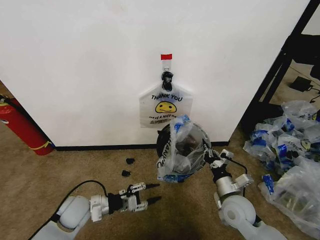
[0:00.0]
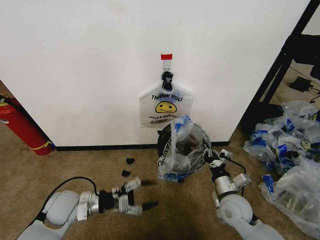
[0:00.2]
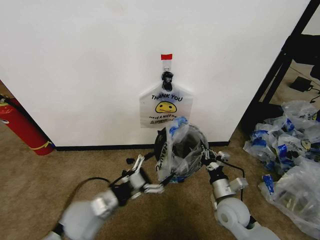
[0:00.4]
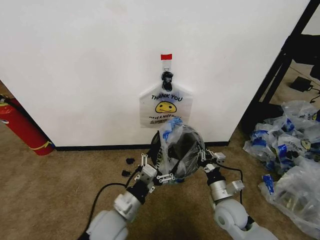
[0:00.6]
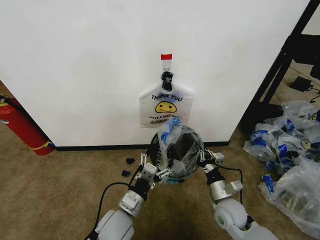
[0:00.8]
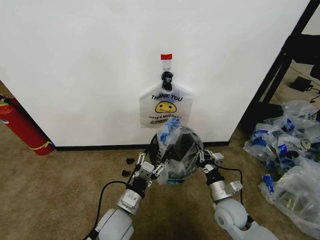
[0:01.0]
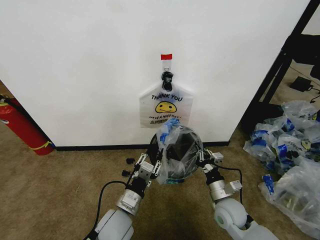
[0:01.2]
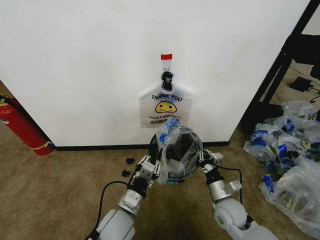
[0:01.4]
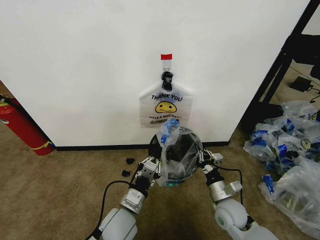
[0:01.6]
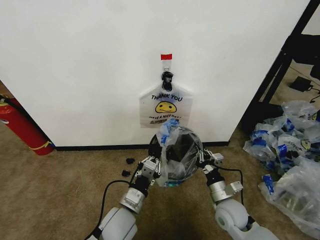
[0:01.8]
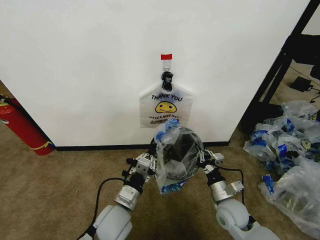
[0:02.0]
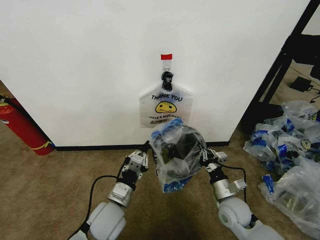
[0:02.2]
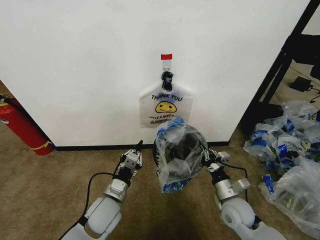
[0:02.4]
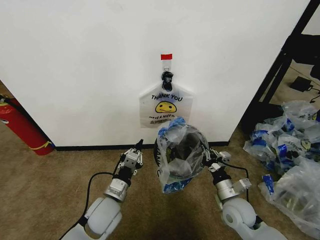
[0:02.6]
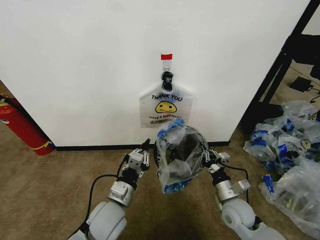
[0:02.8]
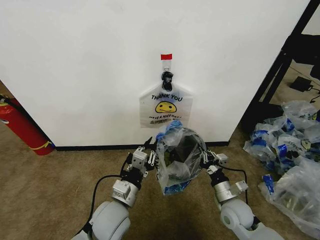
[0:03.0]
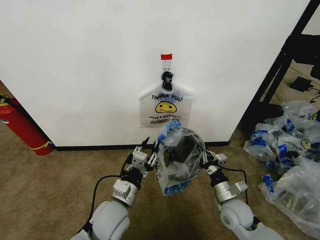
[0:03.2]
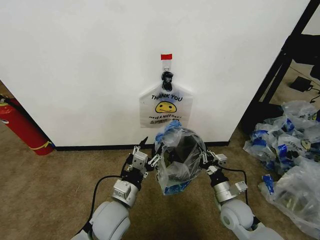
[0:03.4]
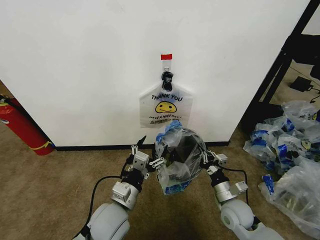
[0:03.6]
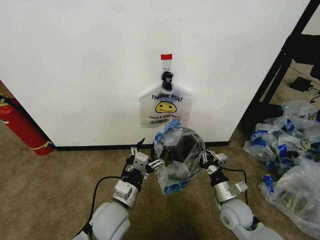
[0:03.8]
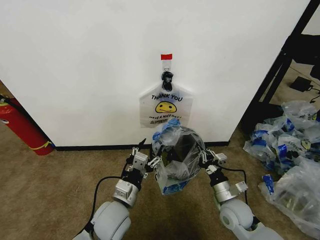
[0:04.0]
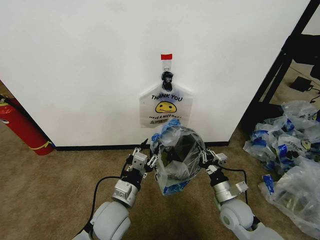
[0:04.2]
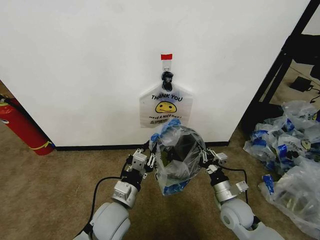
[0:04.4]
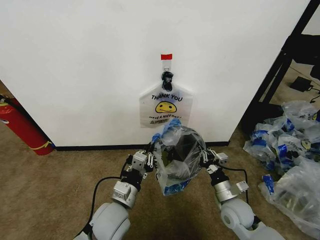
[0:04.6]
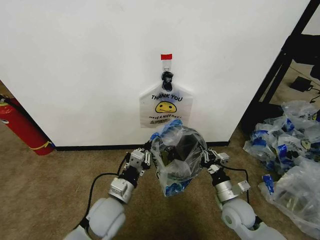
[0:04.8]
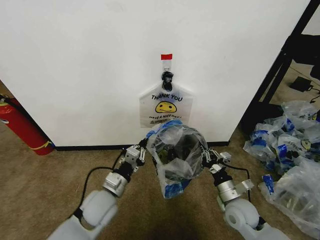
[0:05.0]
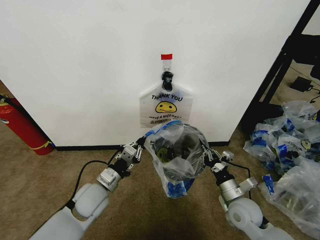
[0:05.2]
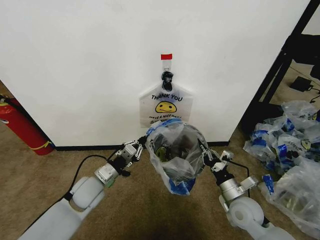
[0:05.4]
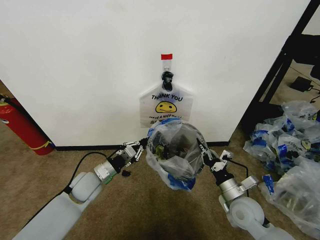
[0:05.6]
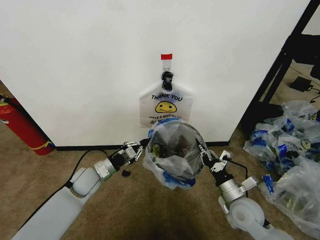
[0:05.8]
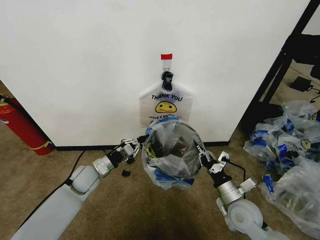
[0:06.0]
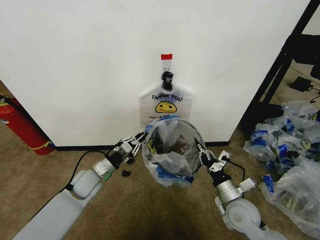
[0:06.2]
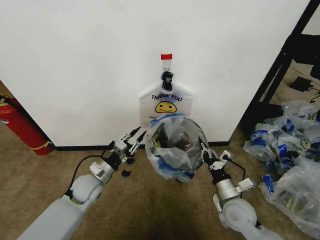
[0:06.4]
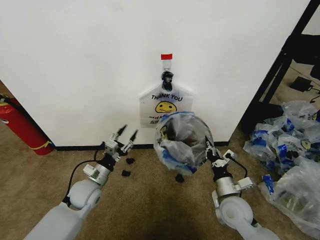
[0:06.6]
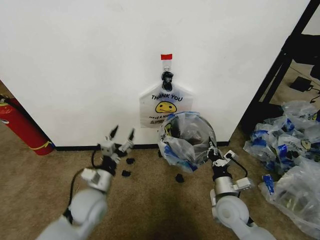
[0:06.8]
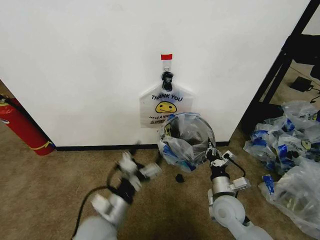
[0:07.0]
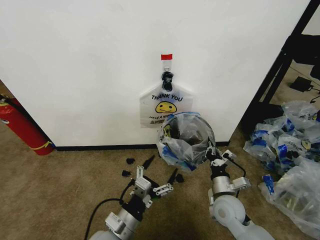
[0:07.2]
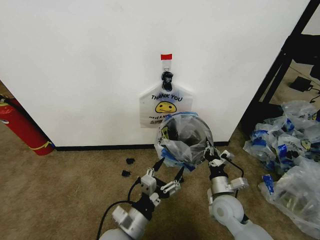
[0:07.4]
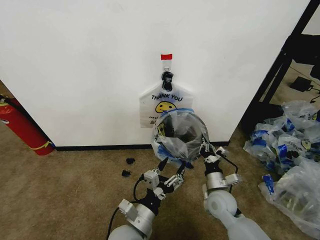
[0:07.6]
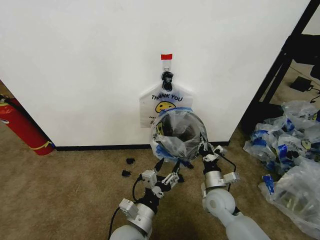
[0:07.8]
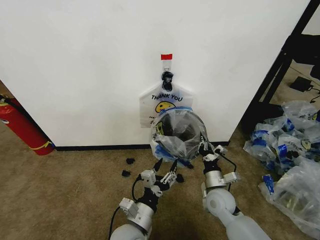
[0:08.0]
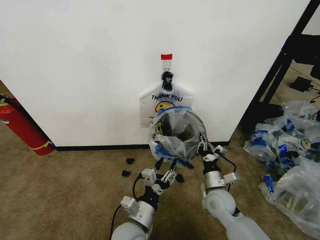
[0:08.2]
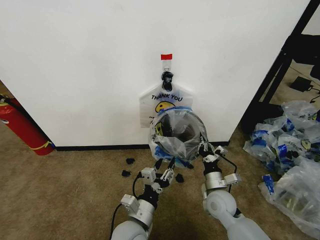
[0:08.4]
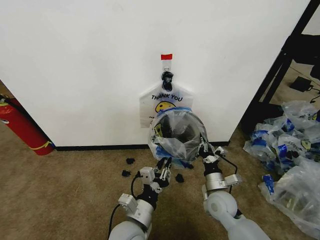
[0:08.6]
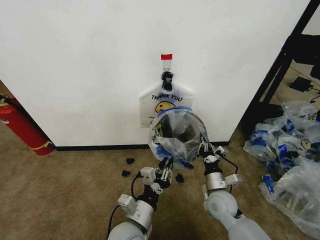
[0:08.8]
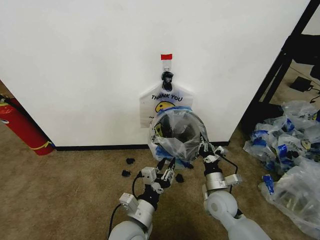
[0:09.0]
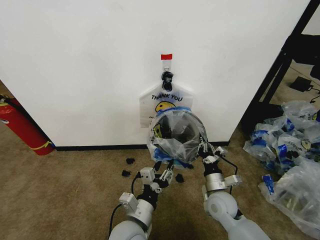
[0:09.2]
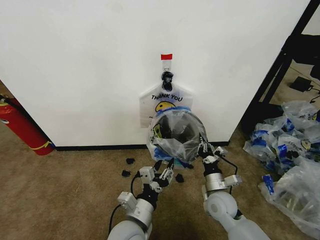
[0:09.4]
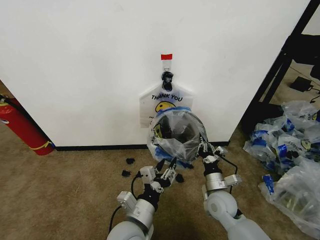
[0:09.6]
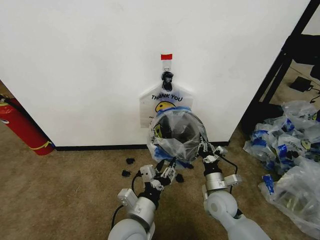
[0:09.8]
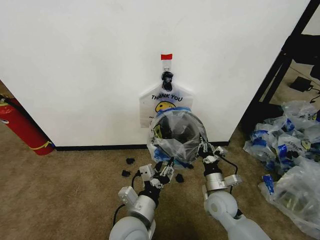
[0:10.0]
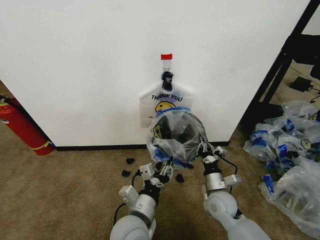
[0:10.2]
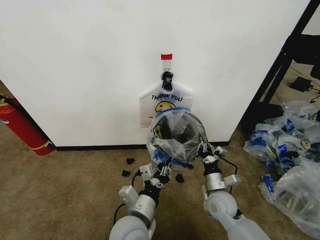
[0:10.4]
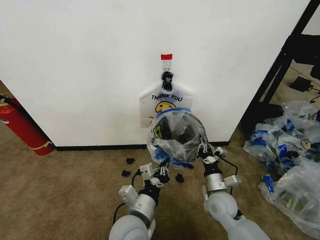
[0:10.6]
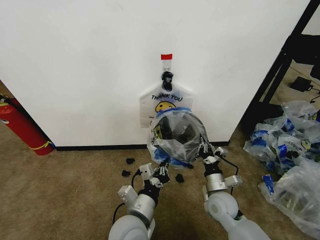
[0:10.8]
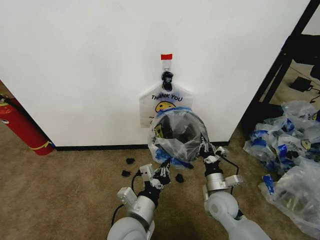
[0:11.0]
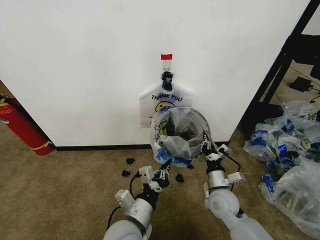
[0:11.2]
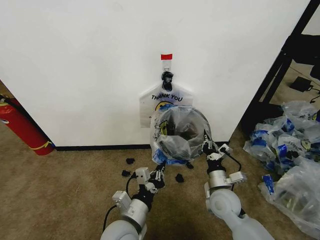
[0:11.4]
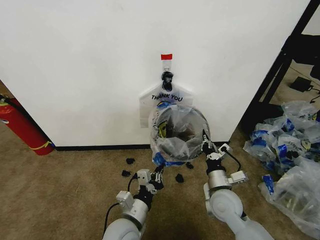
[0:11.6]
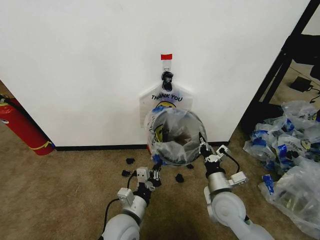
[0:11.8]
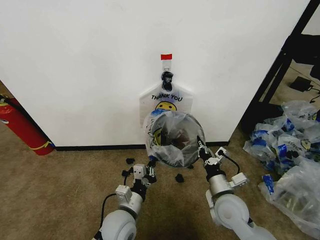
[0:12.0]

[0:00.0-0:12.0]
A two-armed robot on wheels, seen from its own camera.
Task of the whole recording: Pick up the garbage bag from the wall and place it over the trash bin.
0:00.0 to 0:01.6: The left gripper moves to the right, approximately 15 cm, and closes.
0:03.0 to 0:04.4: The left gripper opens, then closes again.
0:04.4 to 0:06.0: The left gripper travels forward and to the left by roughly 20 cm.
0:06.0 to 0:07.6: The right gripper ends up some 5 cm from where it was, while the left gripper goes roughly 25 cm backward and to the right, and opens.
0:07.6 to 0:09.0: There are only small adjustments of the grippers.
0:09.0 to 0:10.4: The grippers move only a little.
0:10.4 to 0:12.0: The right gripper heads upward, covering approximately 5 cm. The left gripper is displaced downward by roughly 5 cm.

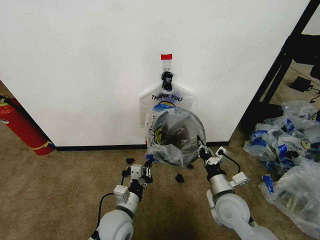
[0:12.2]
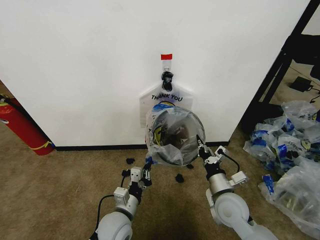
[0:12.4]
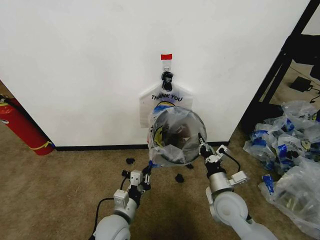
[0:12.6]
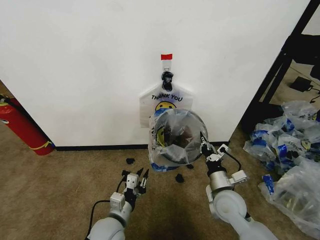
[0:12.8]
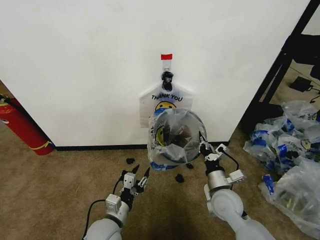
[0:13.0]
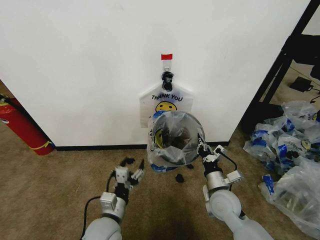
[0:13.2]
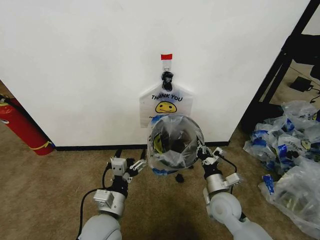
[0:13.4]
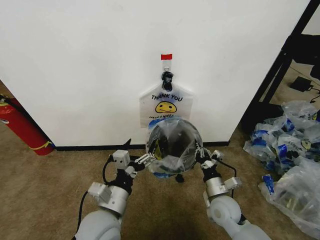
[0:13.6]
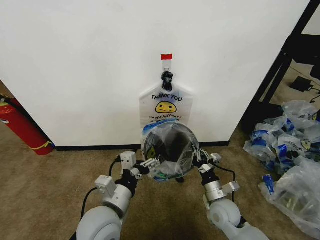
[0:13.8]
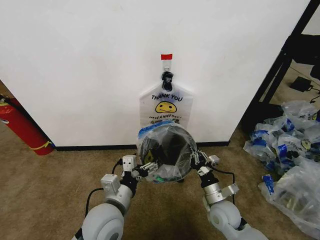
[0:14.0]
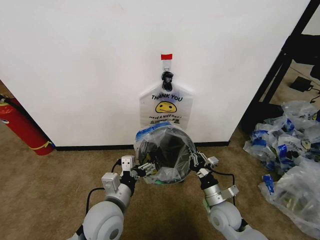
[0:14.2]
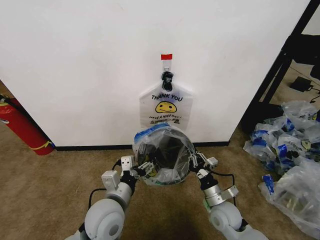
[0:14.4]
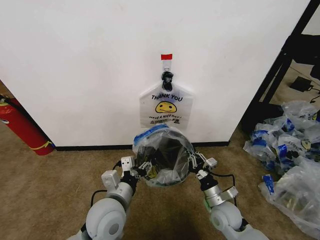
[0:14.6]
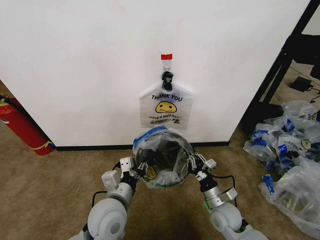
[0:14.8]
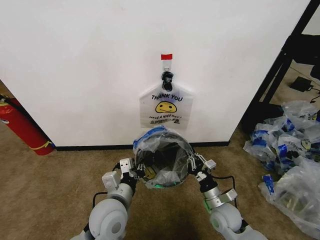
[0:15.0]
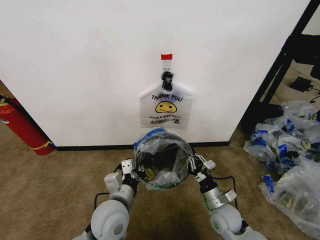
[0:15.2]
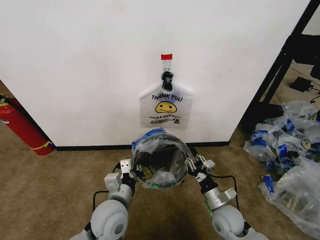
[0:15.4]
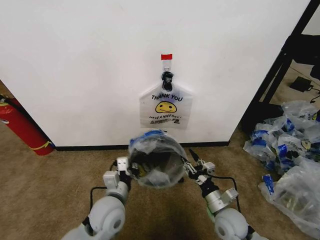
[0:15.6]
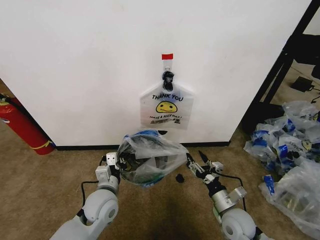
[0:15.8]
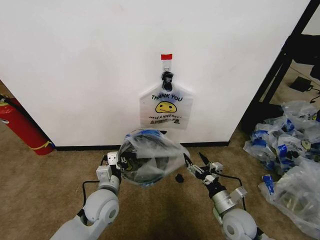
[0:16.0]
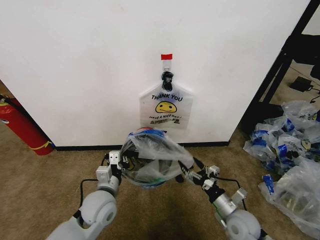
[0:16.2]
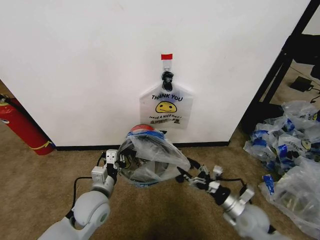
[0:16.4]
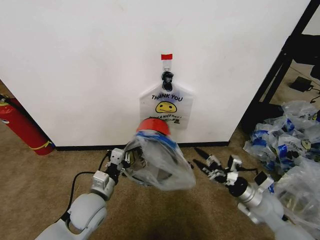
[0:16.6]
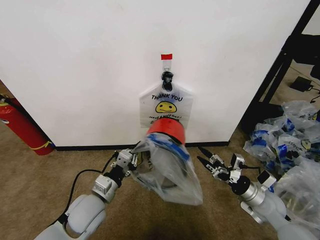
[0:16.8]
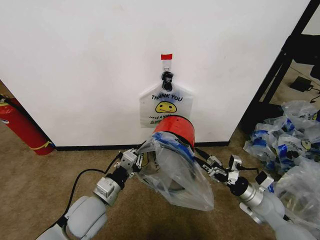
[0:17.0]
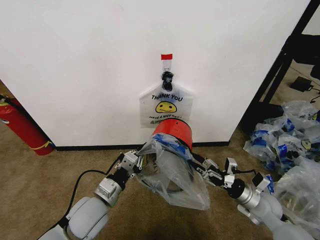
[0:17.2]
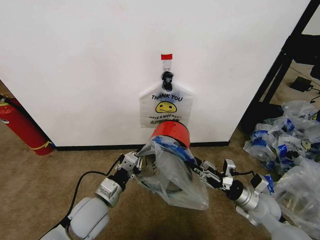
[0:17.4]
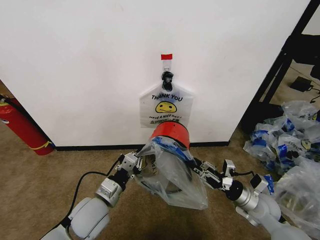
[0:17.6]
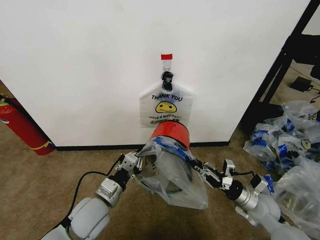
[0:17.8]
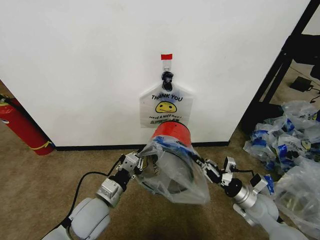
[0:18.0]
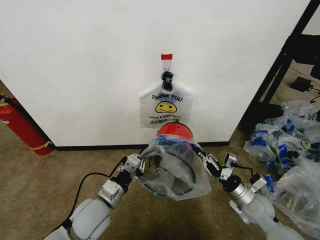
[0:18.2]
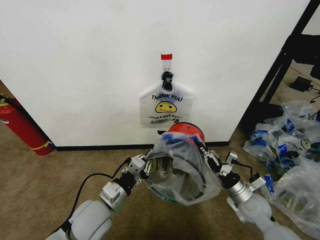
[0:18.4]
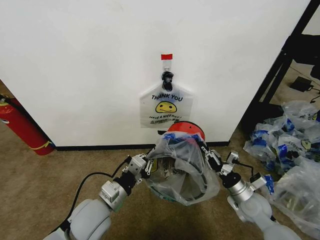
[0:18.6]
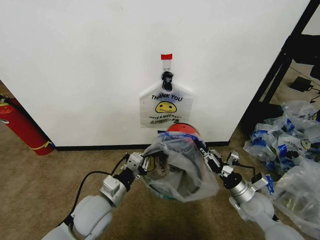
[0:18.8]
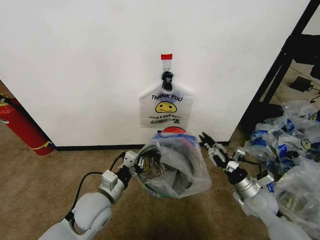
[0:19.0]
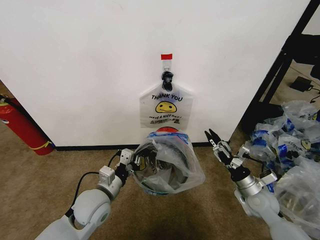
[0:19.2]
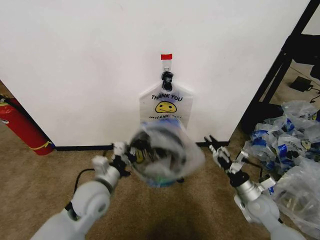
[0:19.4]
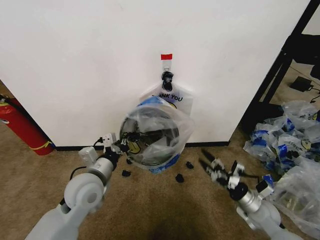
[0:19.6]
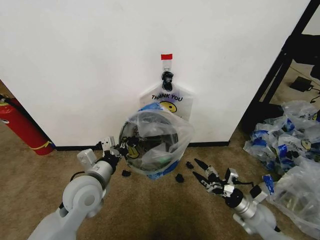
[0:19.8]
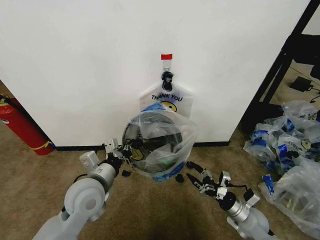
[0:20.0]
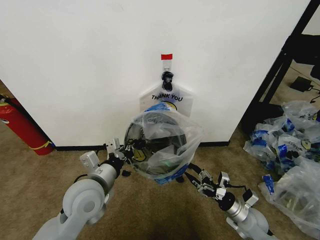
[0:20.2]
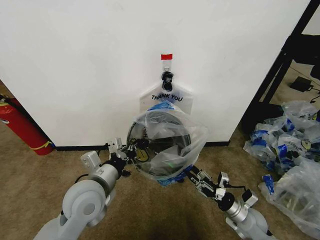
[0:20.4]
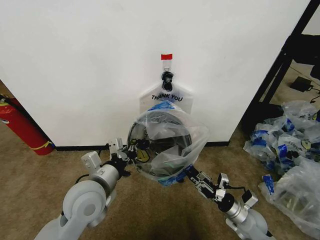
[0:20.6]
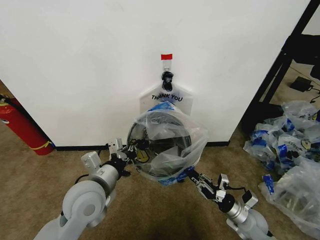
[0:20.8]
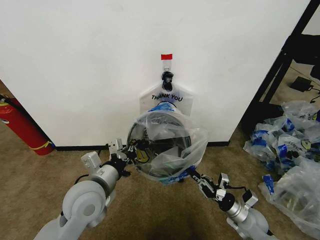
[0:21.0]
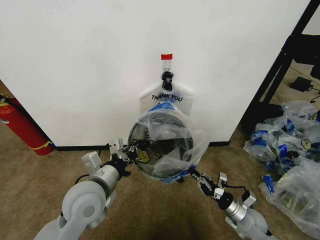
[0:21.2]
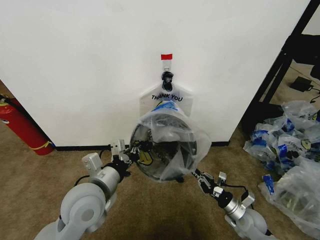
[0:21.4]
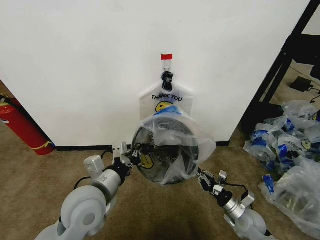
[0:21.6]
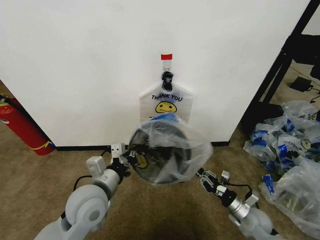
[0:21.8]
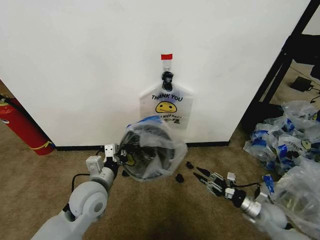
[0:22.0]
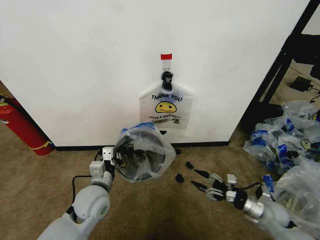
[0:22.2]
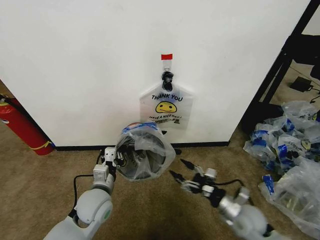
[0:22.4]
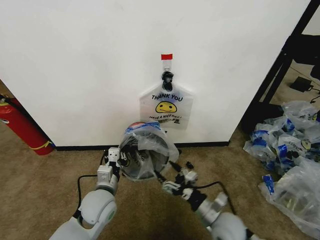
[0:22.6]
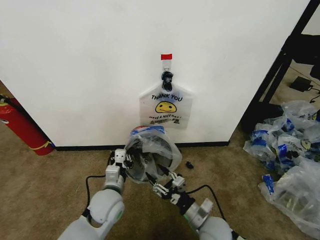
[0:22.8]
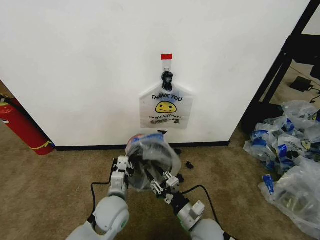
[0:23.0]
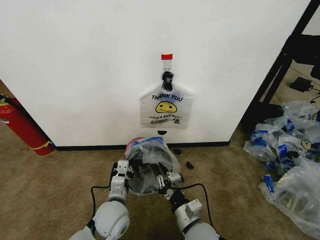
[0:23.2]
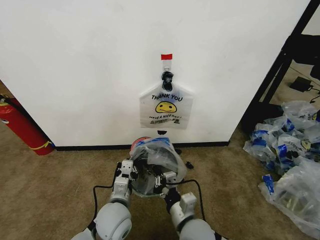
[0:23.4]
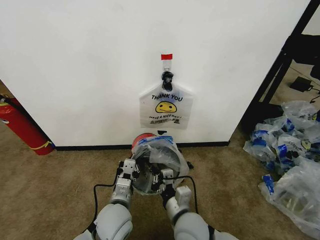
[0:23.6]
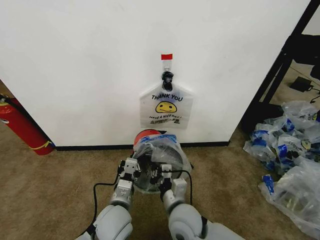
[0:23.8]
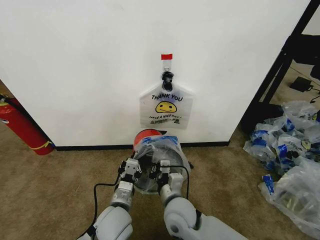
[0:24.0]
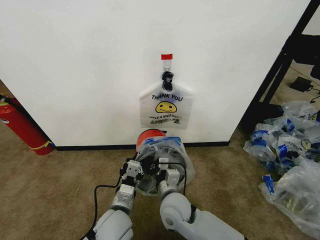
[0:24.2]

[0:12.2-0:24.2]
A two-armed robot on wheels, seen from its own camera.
Task of the whole recording: Pick up the garbage bag from the wall and place it over the trash bin.
0:12.2 to 0:13.8: The left gripper shifts some 10 cm upward, and opens up, while the right gripper moves downward, approximately 5 cm.
0:13.8 to 0:15.2: The left gripper closes its fingers.
0:15.2 to 0:16.6: The right gripper shifts some 15 cm to the right and upward, and opens. The left gripper goes approximately 5 cm to the left.
0:16.6 to 0:18.2: The right gripper closes up.
0:18.2 to 0:19.8: The right gripper shifts by some 5 cm, and opens up. Meanwhile the left gripper goes roughly 5 cm upward.
0:19.8 to 0:21.2: The right gripper closes up.
0:21.2 to 0:22.6: The left gripper travels downward by approximately 10 cm; the right gripper moves to the left and upward, about 15 cm, and opens its fingers.
0:22.6 to 0:24.2: The right gripper goes about 15 cm to the left, and closes its fingers. Meanwhile the left gripper heads backward and to the right, covering approximately 10 cm.
